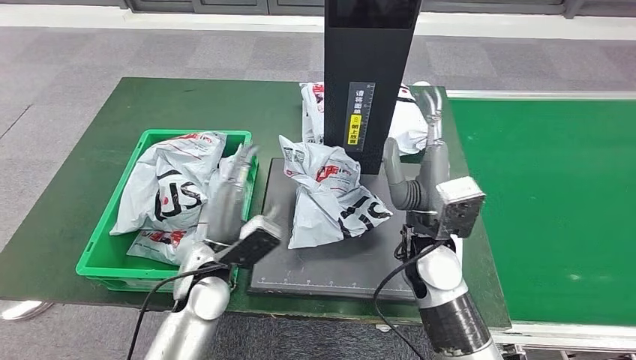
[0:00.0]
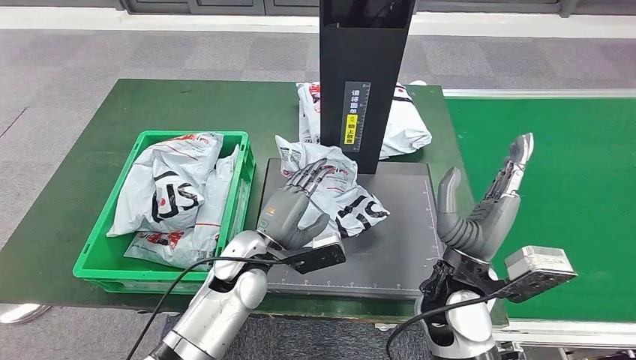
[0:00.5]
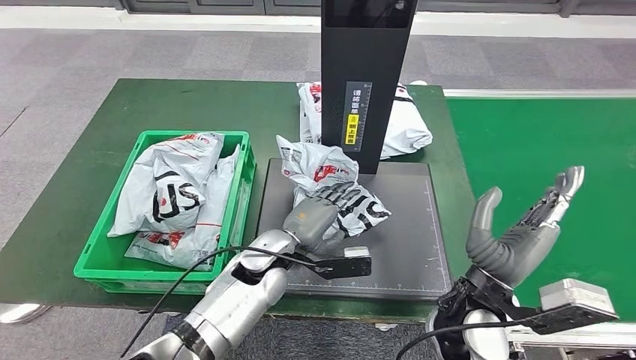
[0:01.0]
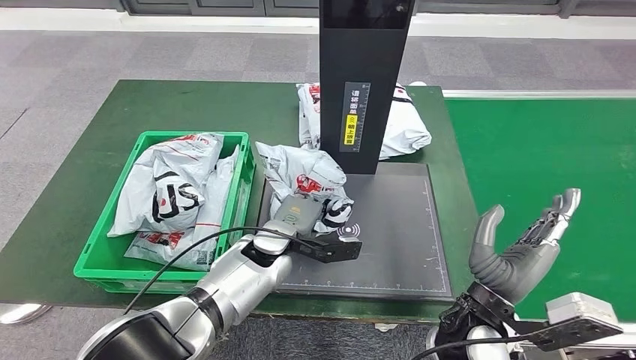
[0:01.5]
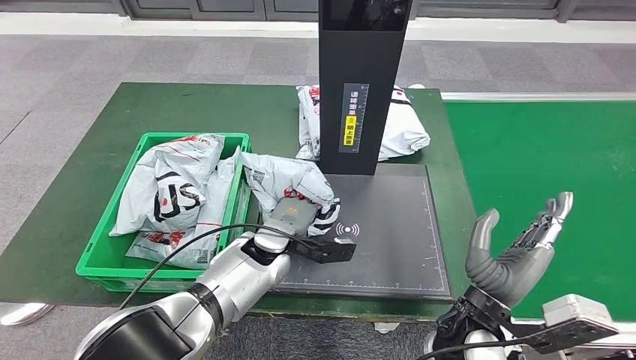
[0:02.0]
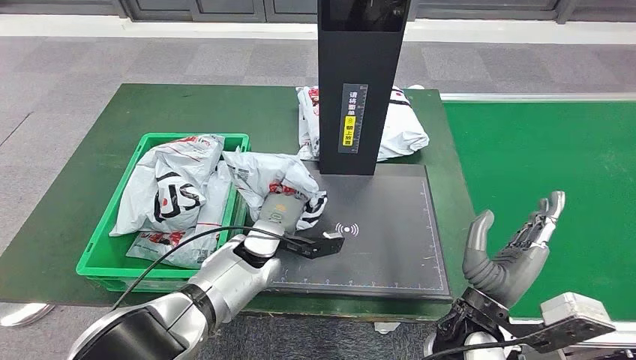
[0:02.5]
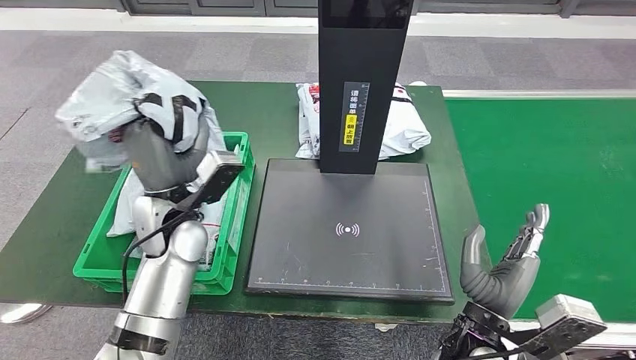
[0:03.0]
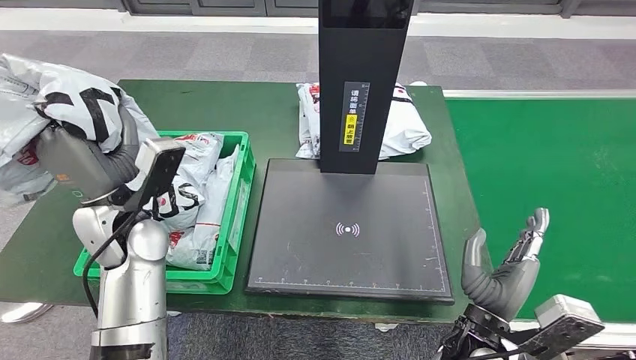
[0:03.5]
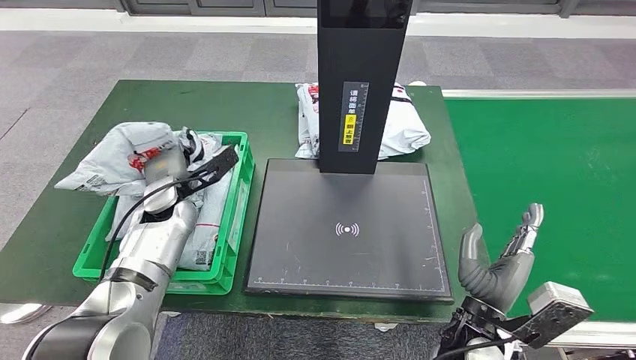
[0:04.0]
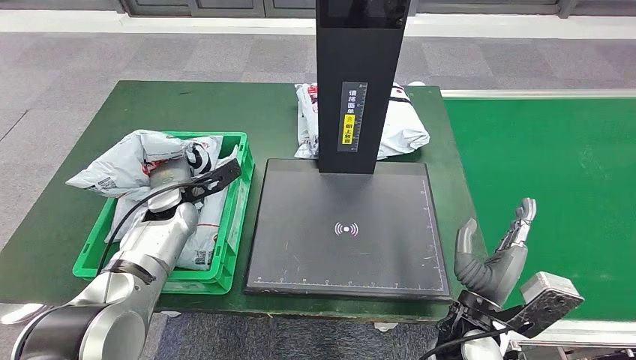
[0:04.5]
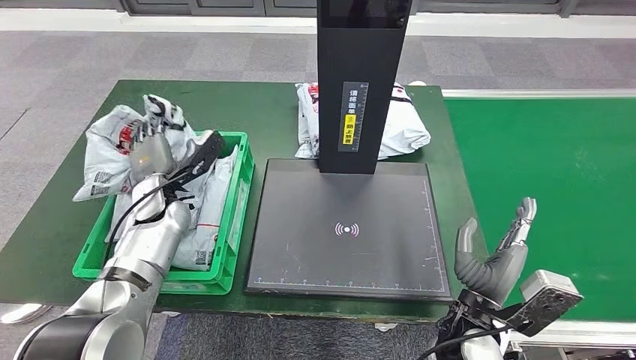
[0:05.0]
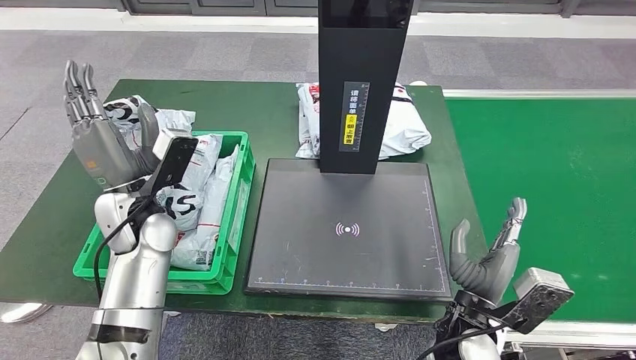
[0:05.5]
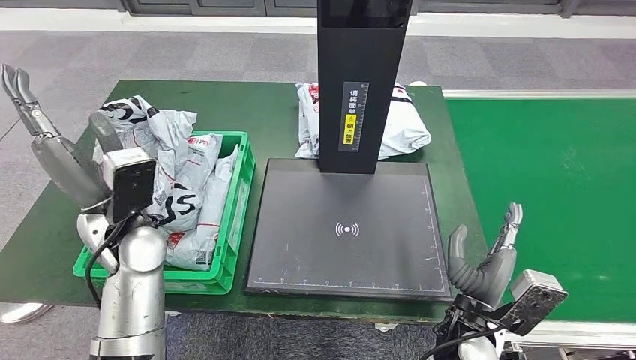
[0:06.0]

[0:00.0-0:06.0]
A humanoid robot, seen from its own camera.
Step, 0:00.5 to 0:03.0: Pick up the parcel from the inbound machine.
Step, 0:03.5 to 0:06.0: Place the parcel into the delivery box.
0:04.0 to 0:06.0: The left hand travels backward and upward by some 15 cm.
